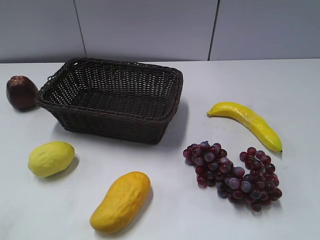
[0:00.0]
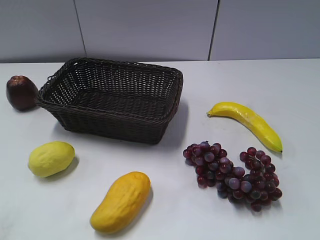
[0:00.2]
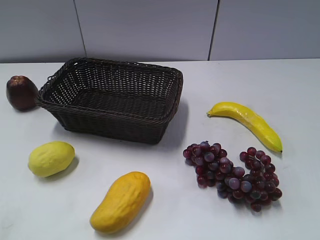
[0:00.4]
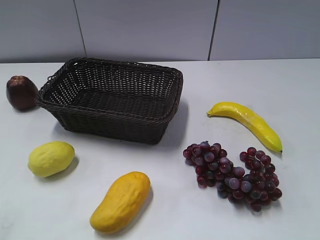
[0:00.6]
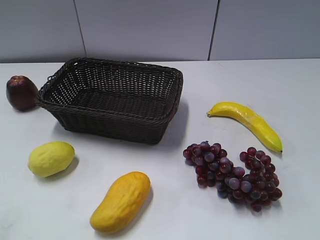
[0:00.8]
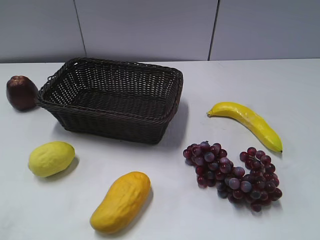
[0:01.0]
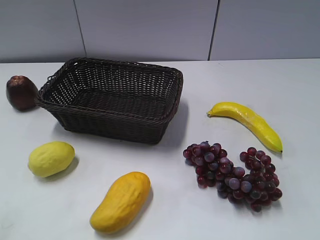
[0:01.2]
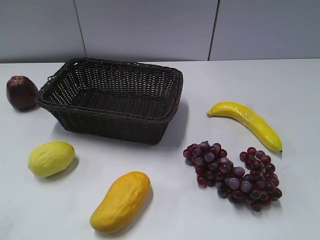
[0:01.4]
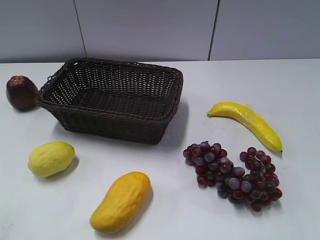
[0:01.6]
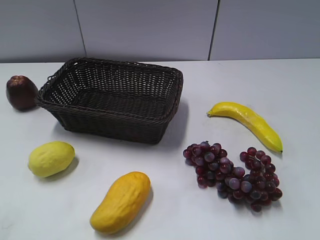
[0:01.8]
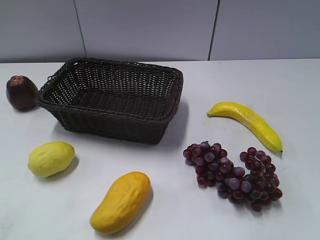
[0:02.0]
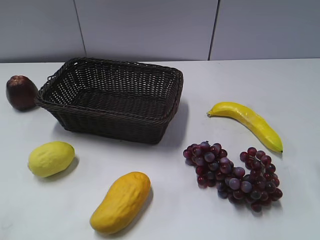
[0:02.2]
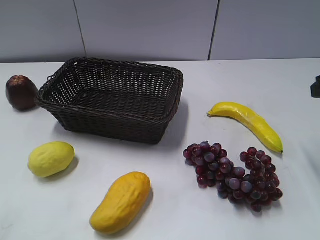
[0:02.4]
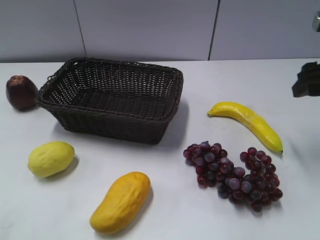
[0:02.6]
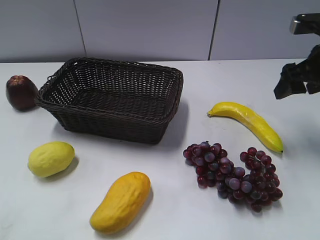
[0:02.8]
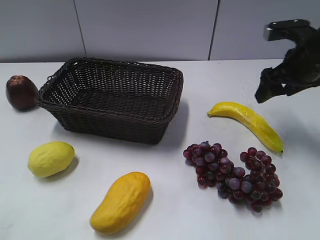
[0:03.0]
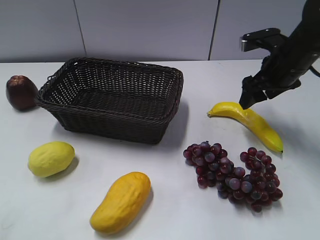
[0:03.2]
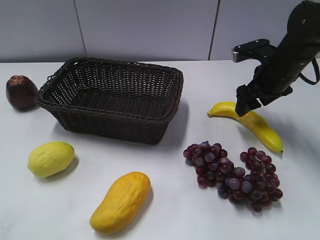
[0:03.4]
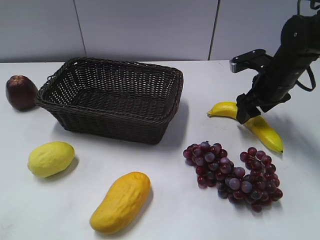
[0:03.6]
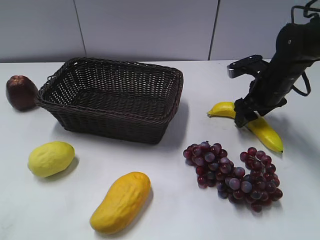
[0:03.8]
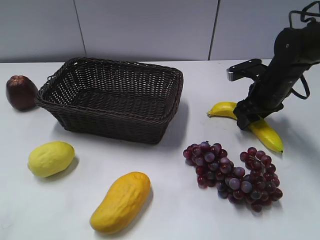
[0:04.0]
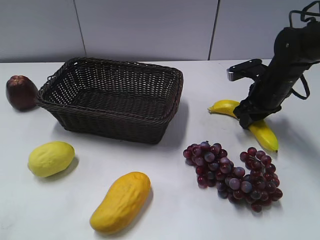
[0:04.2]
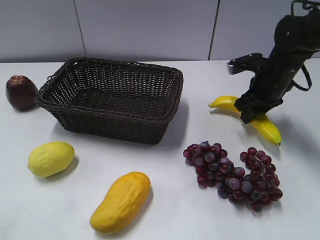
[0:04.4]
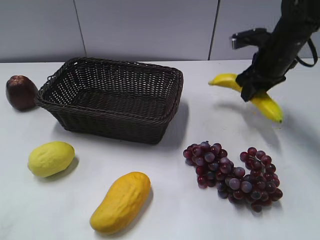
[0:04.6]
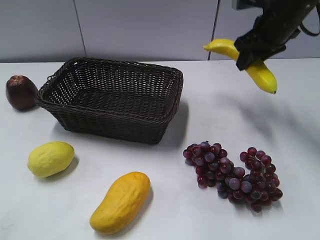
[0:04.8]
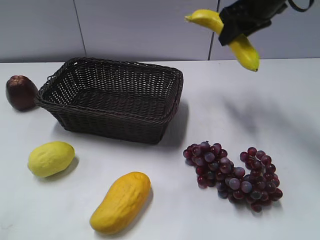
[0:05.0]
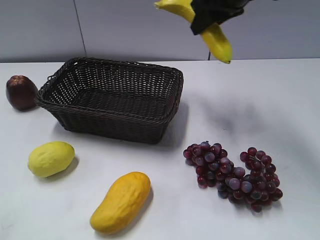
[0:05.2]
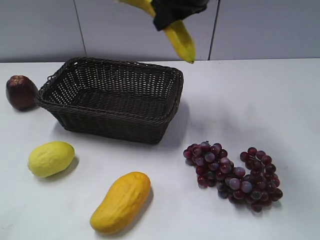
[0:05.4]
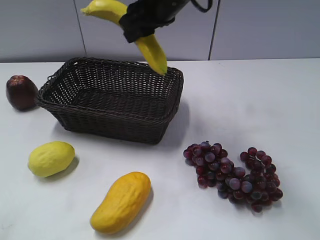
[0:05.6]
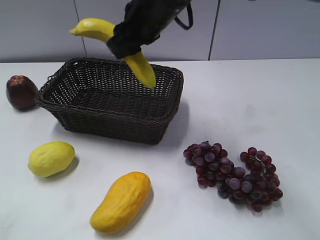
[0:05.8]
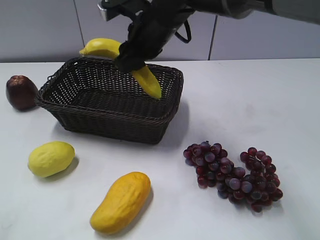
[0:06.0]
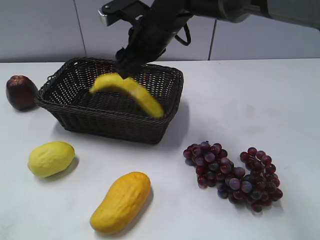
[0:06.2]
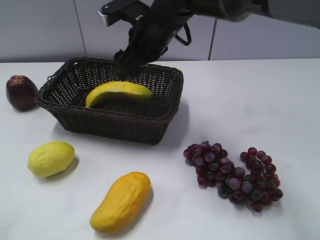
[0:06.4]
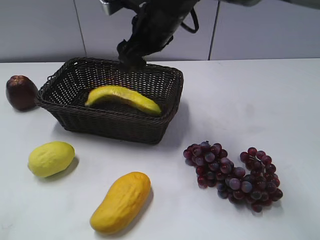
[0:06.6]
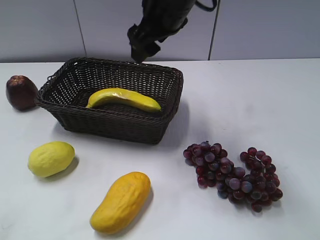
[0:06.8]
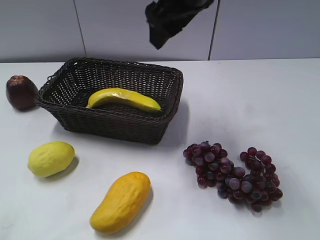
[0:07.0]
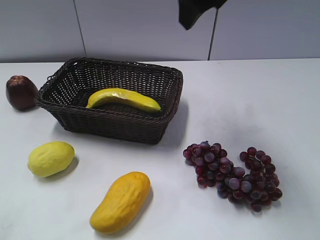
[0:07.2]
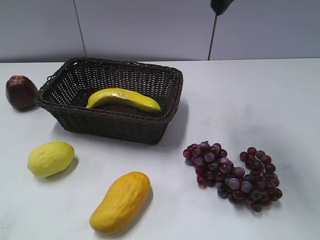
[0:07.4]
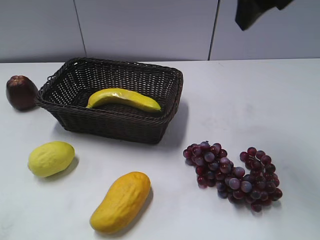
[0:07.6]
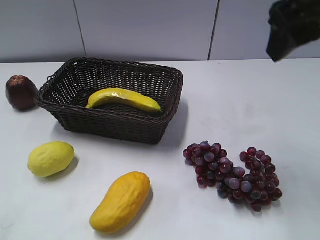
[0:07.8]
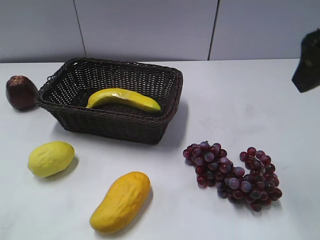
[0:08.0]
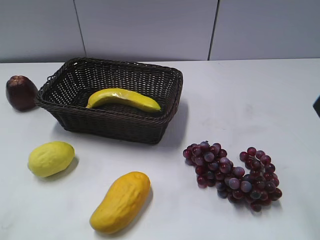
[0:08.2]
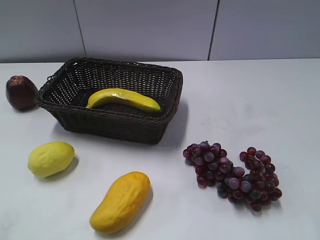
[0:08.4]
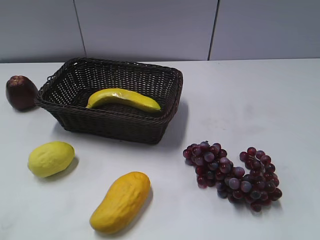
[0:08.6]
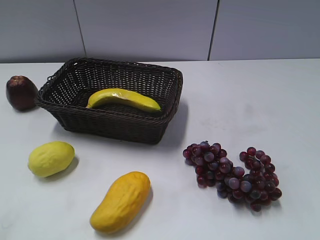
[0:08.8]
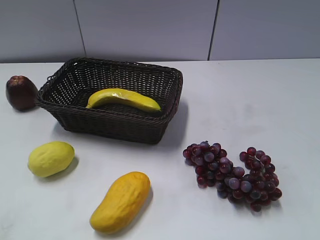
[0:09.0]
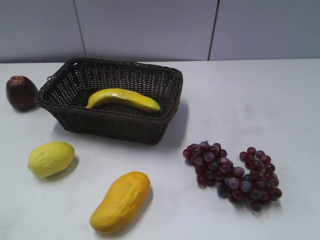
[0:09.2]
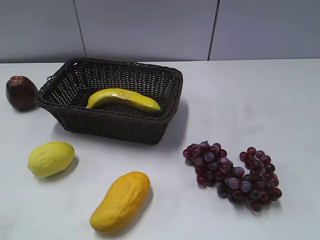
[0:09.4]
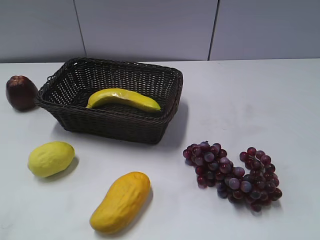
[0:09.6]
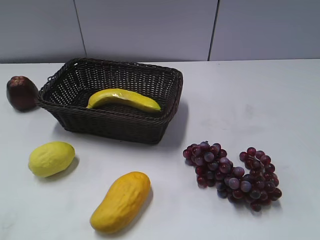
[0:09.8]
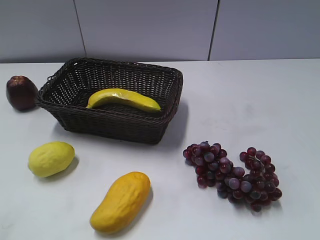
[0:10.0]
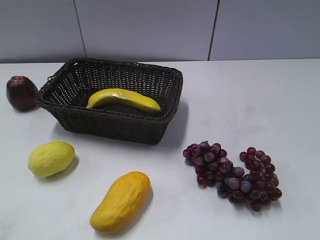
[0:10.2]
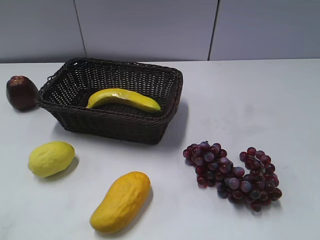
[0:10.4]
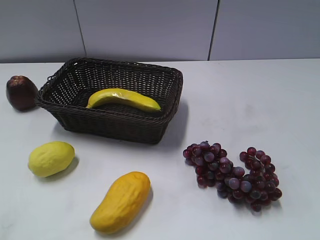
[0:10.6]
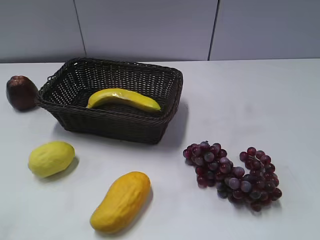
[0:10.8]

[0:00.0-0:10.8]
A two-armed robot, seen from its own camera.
Step, 0:02.4 to 0:04.0: Grasp the banana with right gripper.
Step, 0:04.2 to 0:06.4: Place the banana in the basket with right gripper.
0:01.6 to 0:03.0: The right gripper shifts approximately 30 cm forward.
0:03.0 to 0:04.6: The right gripper travels forward by about 5 cm, moves approximately 10 cm downward and comes back, and closes.
0:04.6 to 0:06.2: The right gripper moves to the left, roughly 25 cm, and opens its fingers.
0:06.2 to 0:07.8: The right gripper travels to the right, backward and upward by approximately 30 cm.
0:07.8 to 0:09.2: The right gripper shifts about 25 cm backward and to the right.

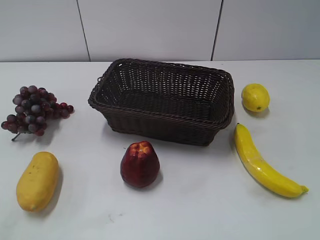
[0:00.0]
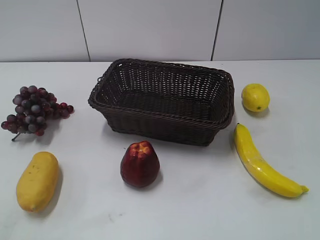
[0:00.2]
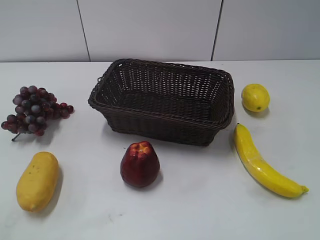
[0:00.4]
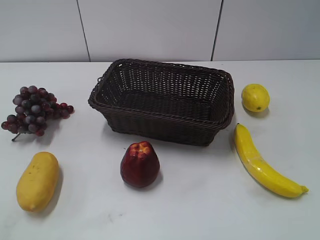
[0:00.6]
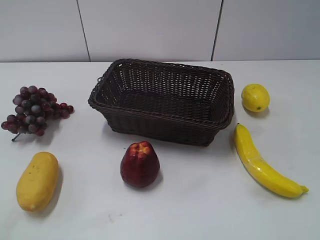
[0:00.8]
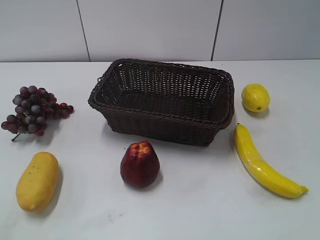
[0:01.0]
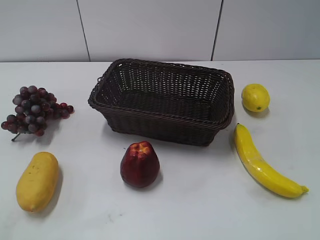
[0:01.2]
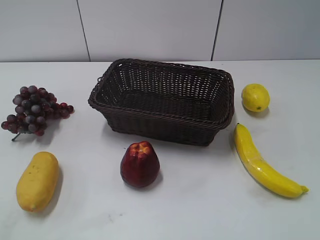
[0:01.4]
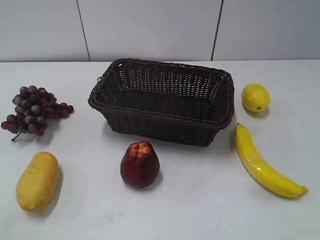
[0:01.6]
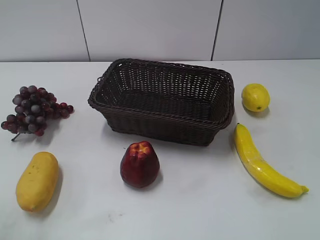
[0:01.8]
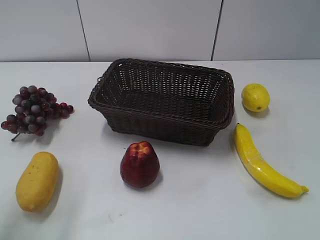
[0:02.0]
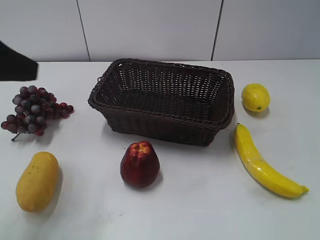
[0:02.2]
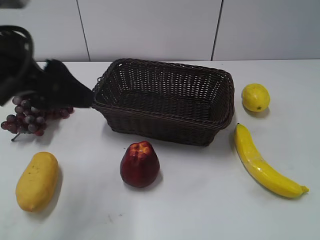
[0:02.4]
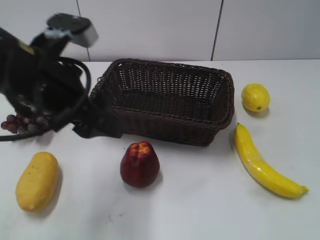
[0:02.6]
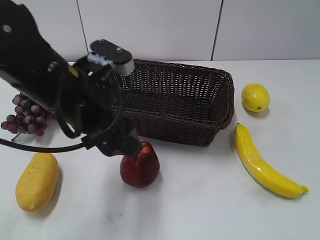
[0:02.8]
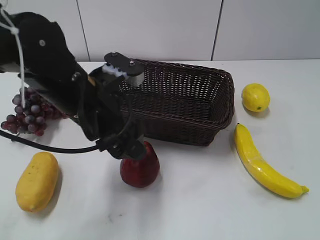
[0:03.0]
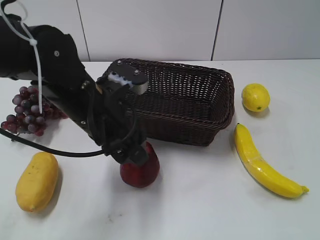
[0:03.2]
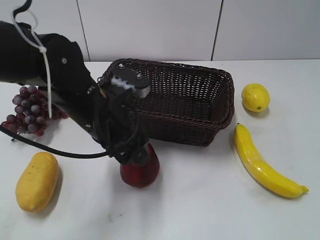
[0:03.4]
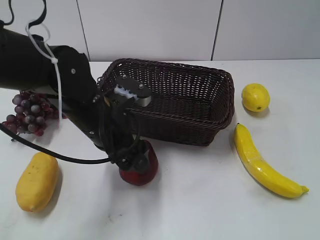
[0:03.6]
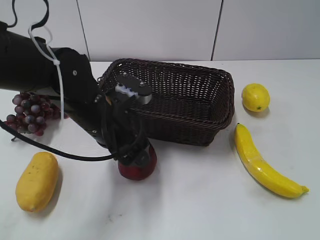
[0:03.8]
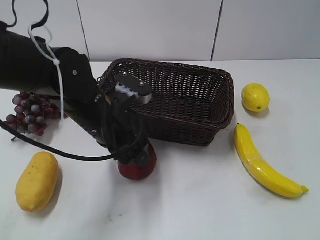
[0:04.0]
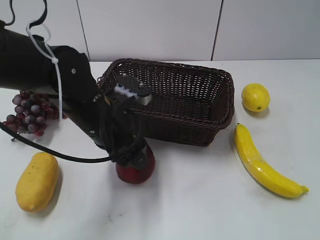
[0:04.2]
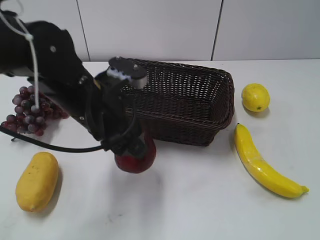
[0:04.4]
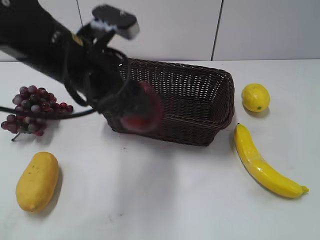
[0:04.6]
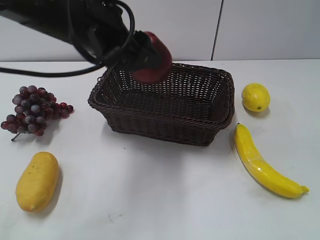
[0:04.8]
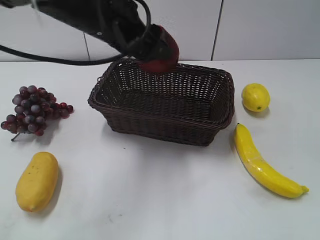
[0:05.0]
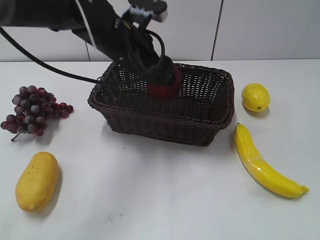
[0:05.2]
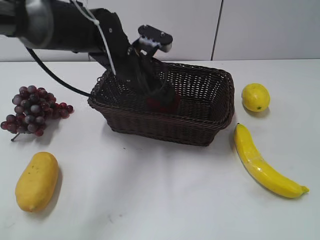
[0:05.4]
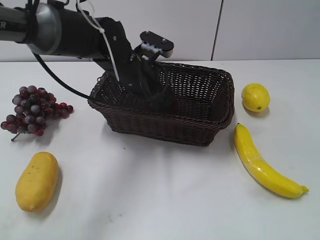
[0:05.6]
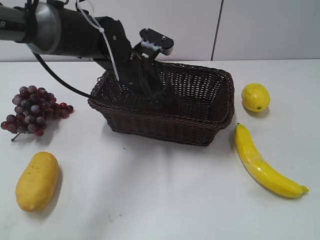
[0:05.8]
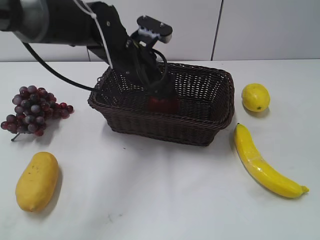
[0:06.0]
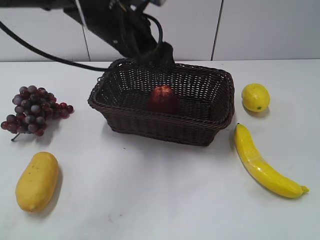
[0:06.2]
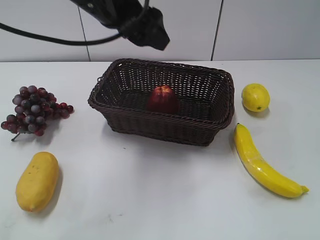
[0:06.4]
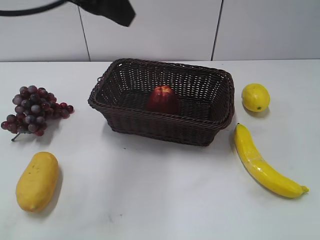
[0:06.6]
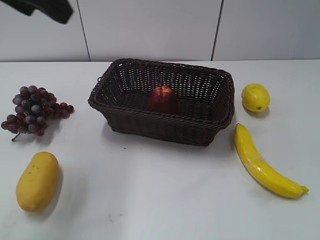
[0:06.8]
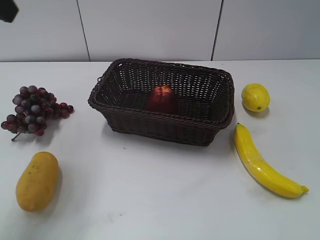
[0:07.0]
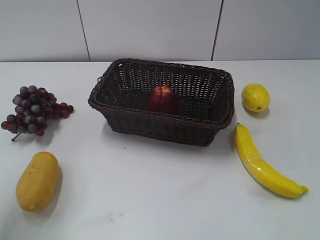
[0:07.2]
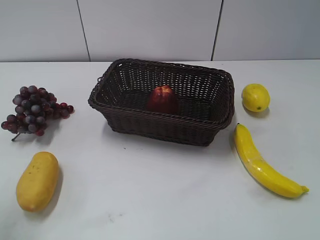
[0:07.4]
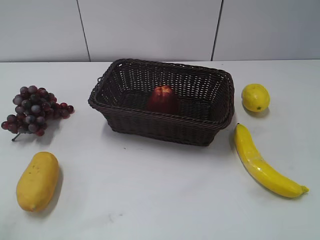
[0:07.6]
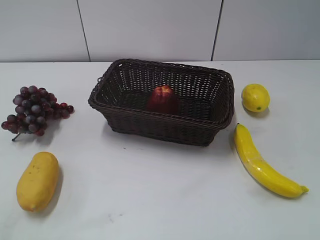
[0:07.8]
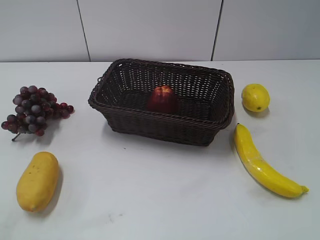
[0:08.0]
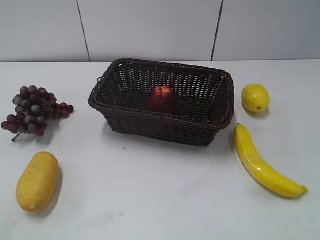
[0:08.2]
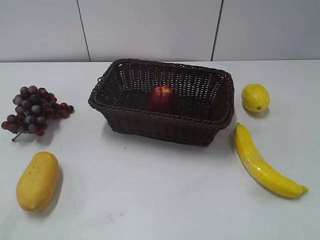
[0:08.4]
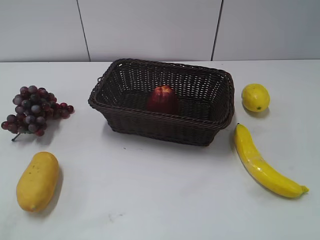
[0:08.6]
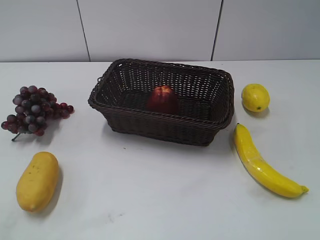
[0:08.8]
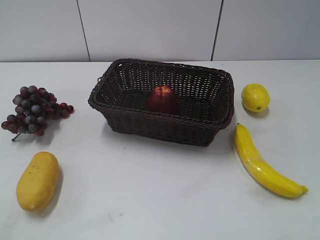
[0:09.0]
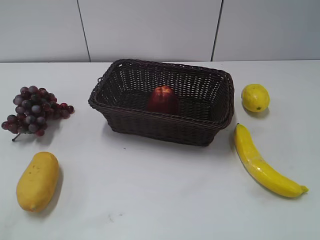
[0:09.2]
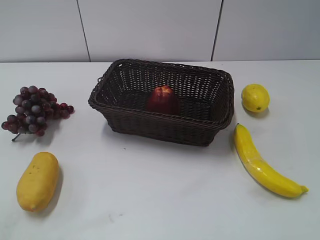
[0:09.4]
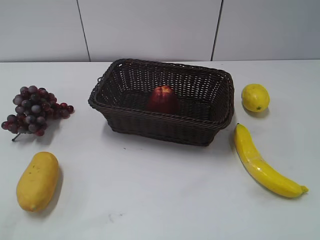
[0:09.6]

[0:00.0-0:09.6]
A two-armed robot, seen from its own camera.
Step, 0:02.2 to 0:03.4: Grasp the apple with left gripper.
Step, 0:03.8 to 0:05.6: Place the apple in the basket with left gripper.
0:01.6 to 0:03.2: The left gripper heads to the right, forward and downward, covering about 35 cm.
0:03.2 to 0:04.8: The left gripper travels upward by about 10 cm, and closes up.
0:04.8 to 0:06.4: The left gripper goes downward and returns, roughly 15 cm each way, and opens.
0:06.4 to 0:08.0: The left gripper heads backward and to the left, covering approximately 35 cm, and closes its fingers.
